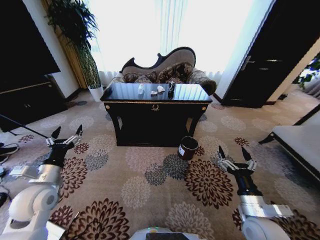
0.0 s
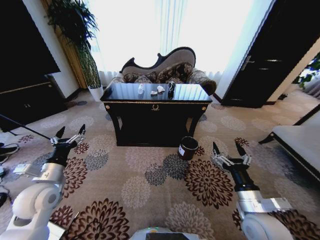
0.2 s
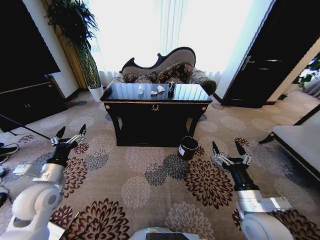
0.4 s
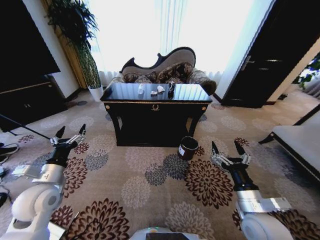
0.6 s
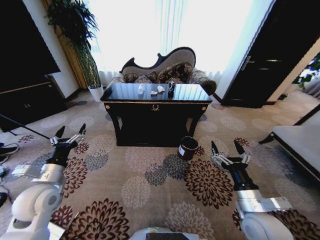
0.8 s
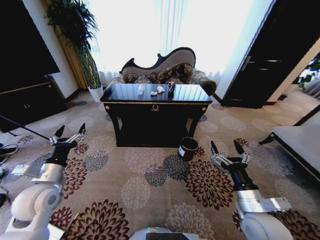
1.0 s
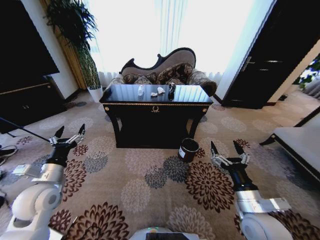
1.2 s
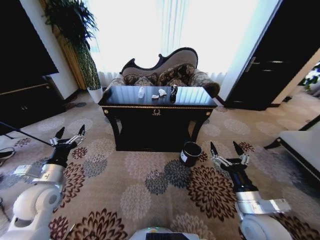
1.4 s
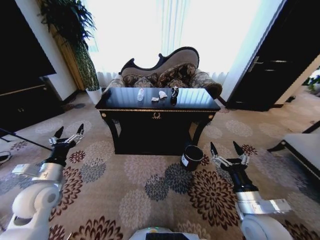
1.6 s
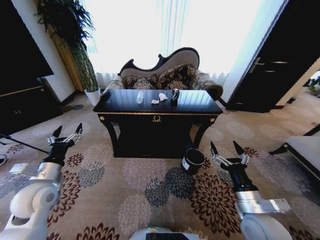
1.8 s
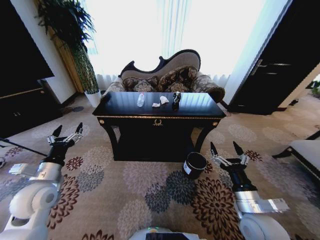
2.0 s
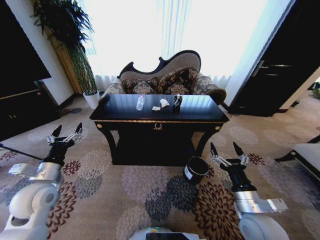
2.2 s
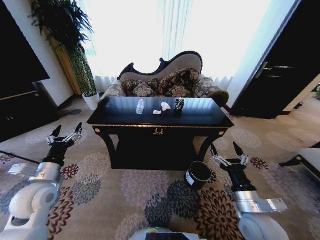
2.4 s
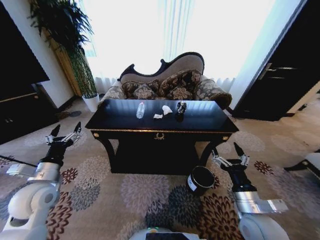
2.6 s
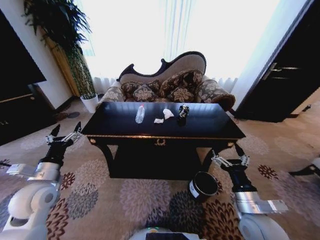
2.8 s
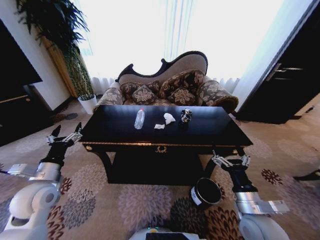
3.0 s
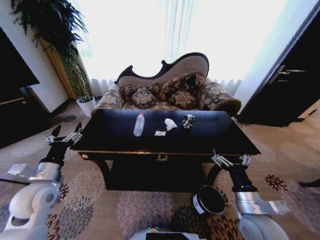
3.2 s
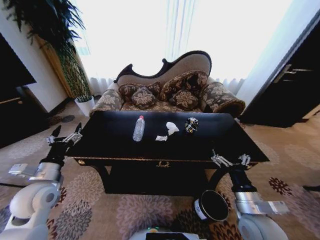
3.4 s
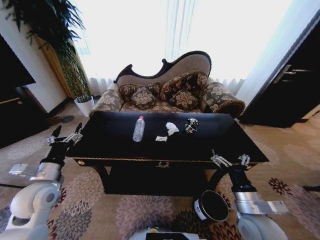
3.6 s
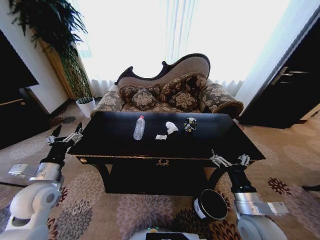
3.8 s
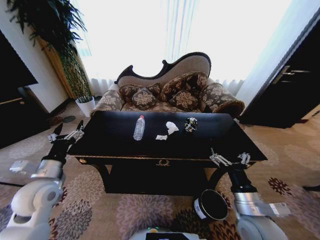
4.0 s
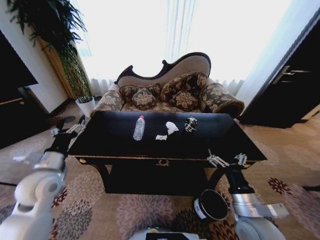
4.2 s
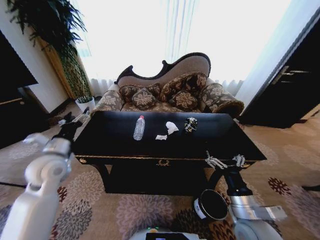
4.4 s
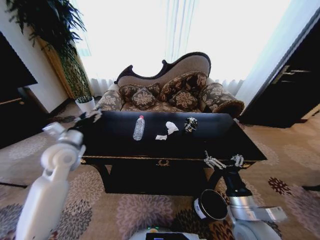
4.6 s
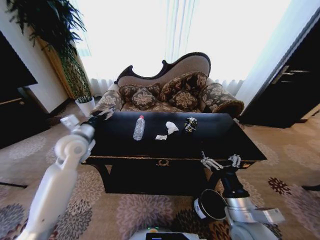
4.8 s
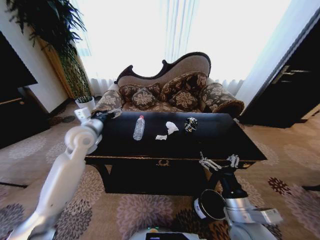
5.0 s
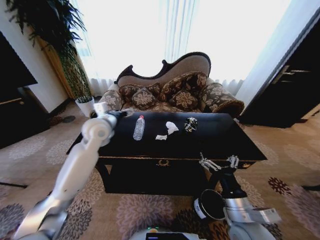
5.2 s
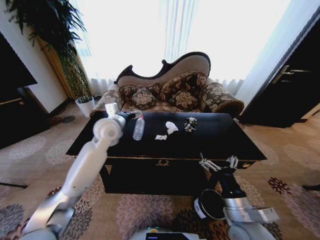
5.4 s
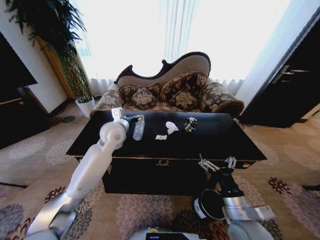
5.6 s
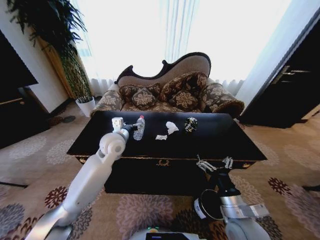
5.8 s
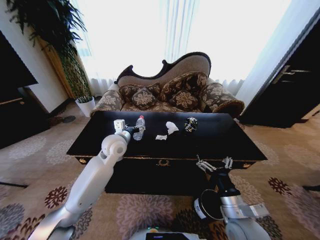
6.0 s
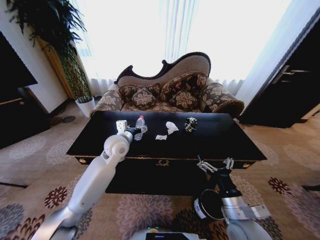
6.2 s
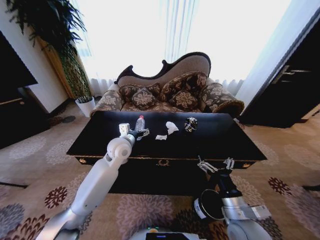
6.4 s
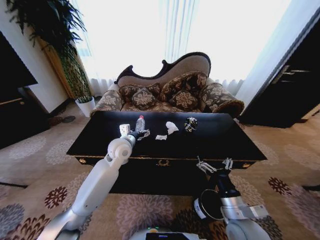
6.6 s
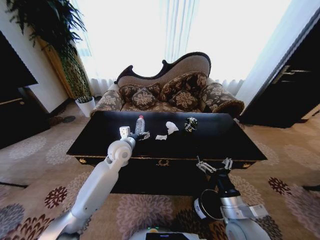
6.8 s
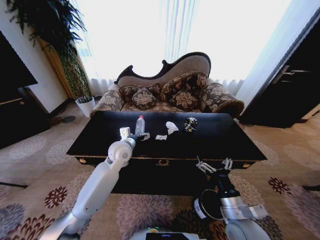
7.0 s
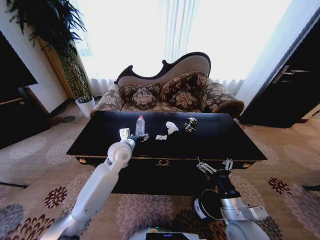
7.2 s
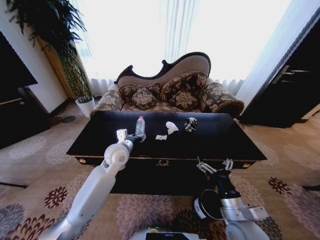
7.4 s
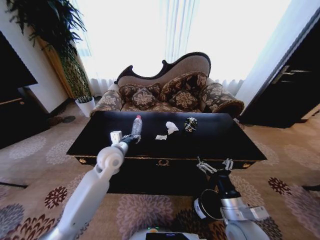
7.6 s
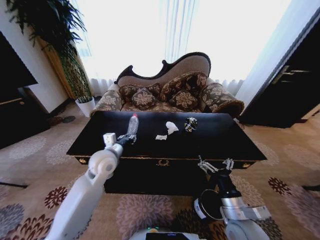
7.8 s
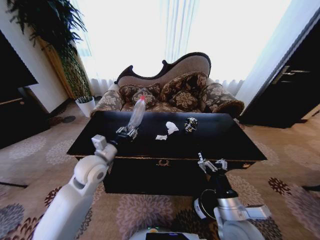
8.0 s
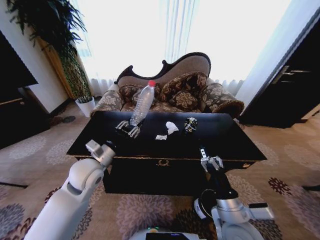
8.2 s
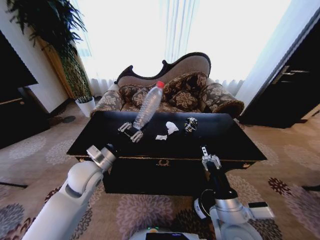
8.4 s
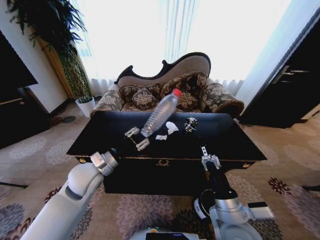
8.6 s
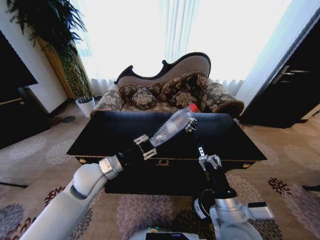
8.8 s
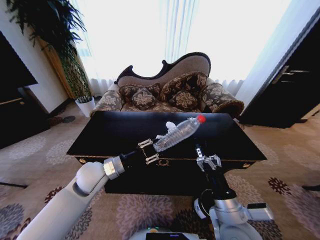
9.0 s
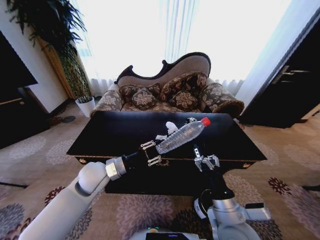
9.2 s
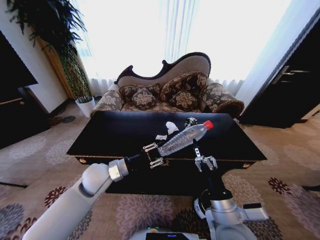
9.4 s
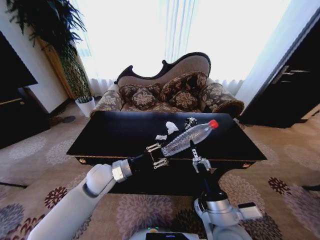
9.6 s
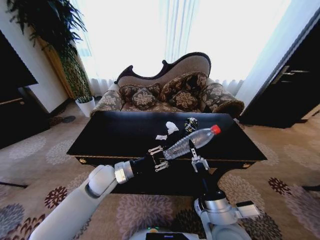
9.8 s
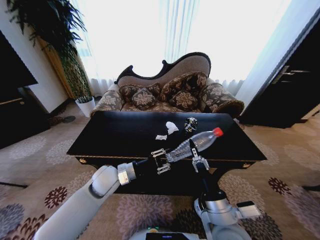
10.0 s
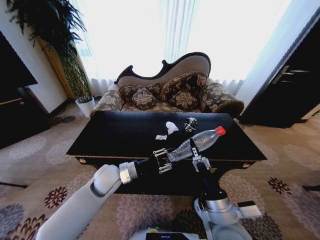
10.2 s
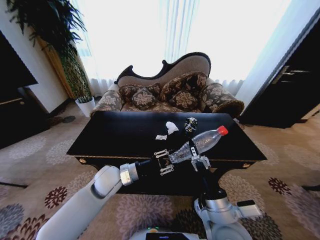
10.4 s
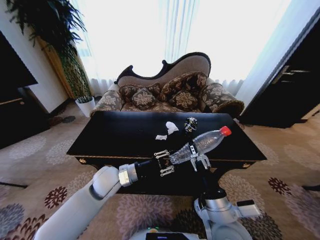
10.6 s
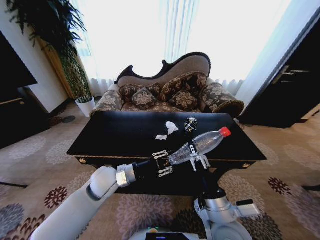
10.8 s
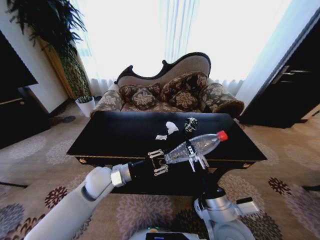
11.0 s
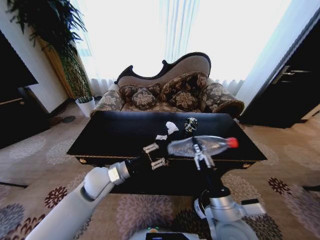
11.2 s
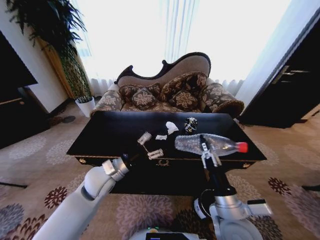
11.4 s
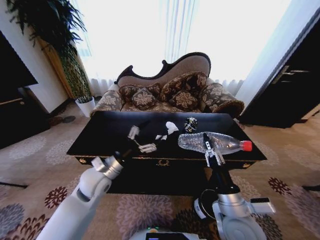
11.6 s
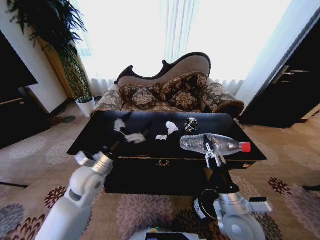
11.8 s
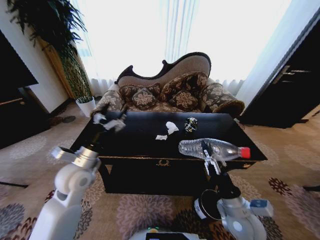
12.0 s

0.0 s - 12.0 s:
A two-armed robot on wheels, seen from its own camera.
Task of the whole recording: Move to the front of the table and place the trash on the table into the trash bin.
3.0 s - 4.4 s: The left gripper travels forward and upward by about 10 cm.
4.4 s - 6.0 s: The left gripper goes about 20 cm to the right and forward.
6.0 s - 7.6 s: The left gripper closes up.
7.6 s - 9.0 s: The left gripper shifts about 10 cm backward. Meanwhile the right gripper shifts by roughly 5 cm.
9.0 s - 10.4 s: The left gripper changes place by about 5 cm.
10.4 s - 12.0 s: The left gripper is displaced to the left by some 10 cm, and opens up. The right gripper moves to the right and downward, approximately 10 cm, and closes its fingers.

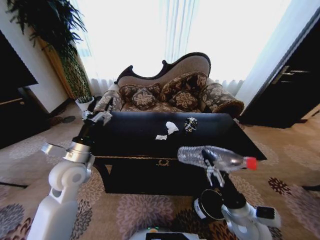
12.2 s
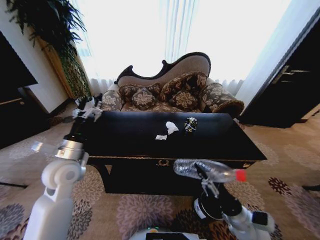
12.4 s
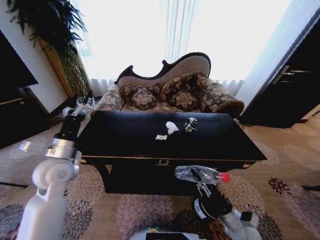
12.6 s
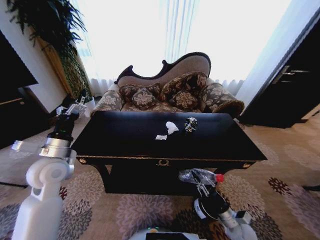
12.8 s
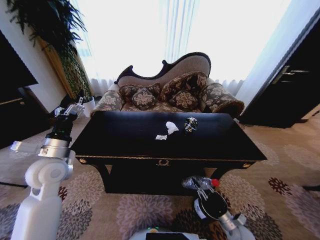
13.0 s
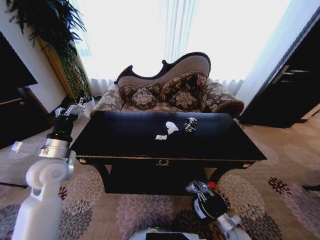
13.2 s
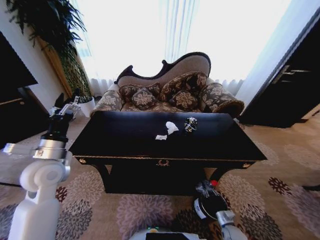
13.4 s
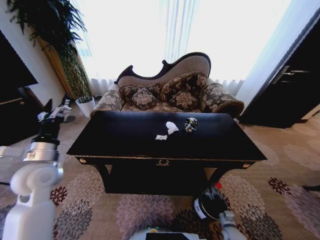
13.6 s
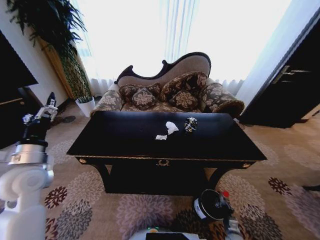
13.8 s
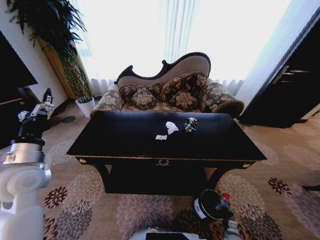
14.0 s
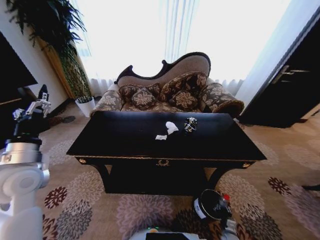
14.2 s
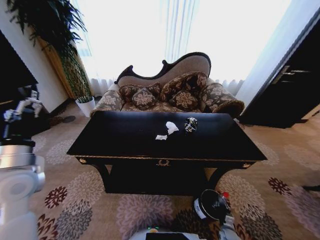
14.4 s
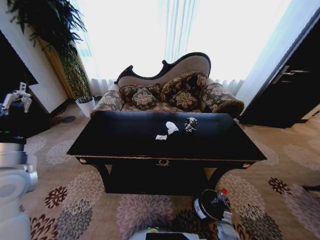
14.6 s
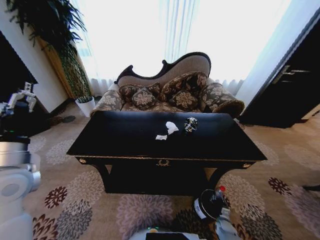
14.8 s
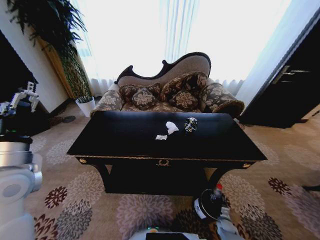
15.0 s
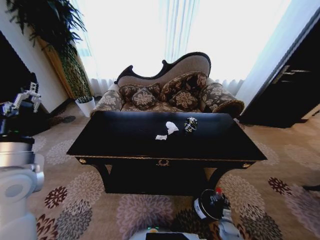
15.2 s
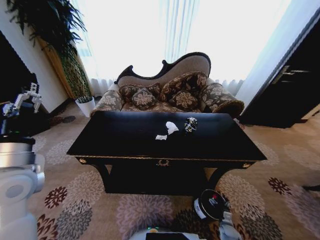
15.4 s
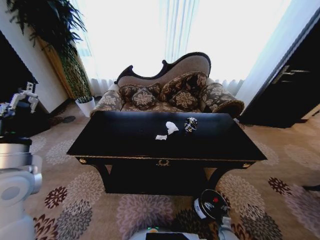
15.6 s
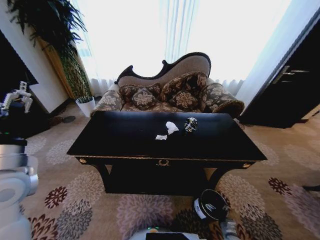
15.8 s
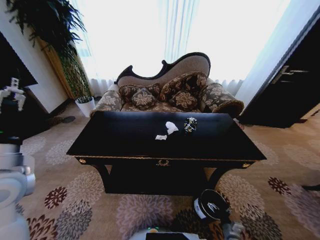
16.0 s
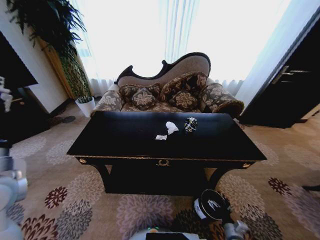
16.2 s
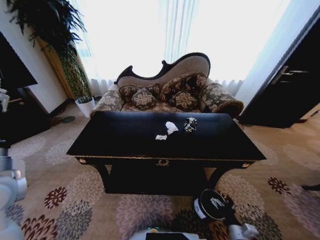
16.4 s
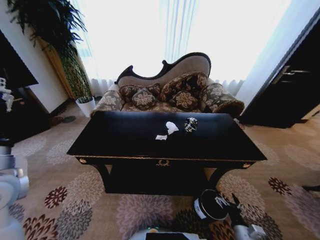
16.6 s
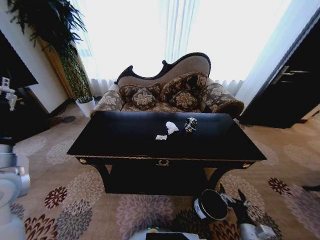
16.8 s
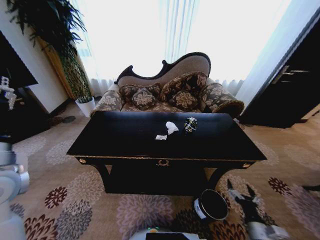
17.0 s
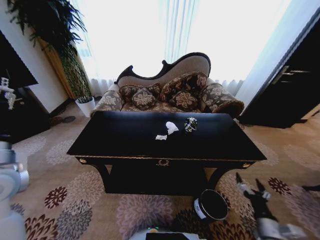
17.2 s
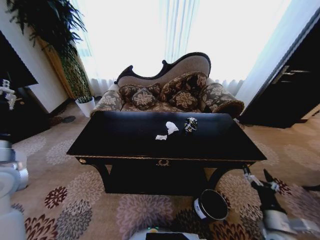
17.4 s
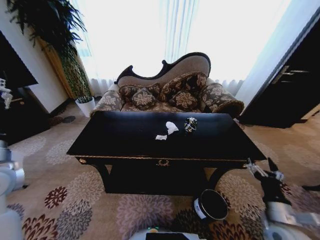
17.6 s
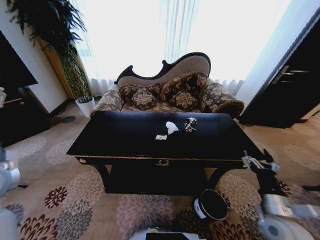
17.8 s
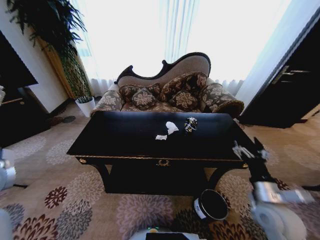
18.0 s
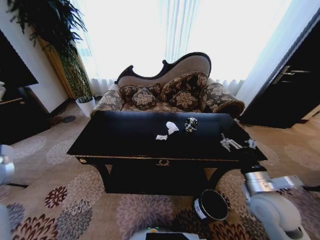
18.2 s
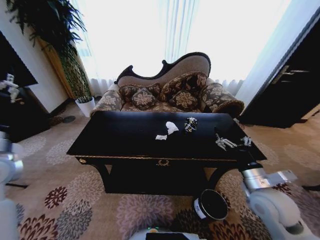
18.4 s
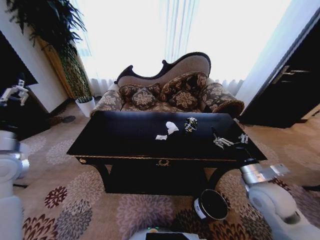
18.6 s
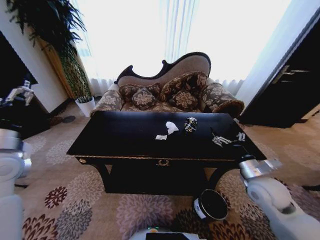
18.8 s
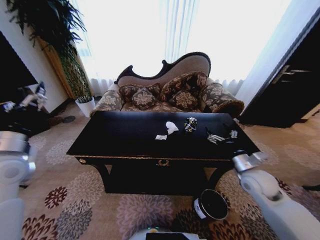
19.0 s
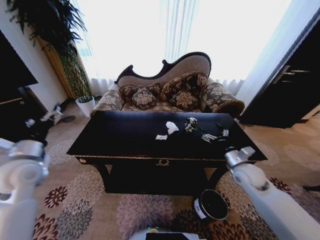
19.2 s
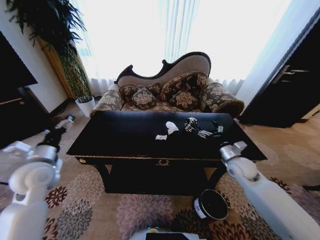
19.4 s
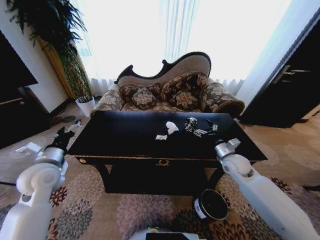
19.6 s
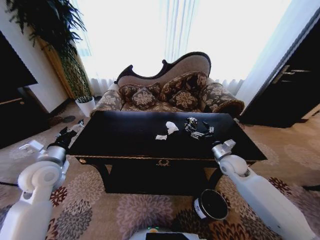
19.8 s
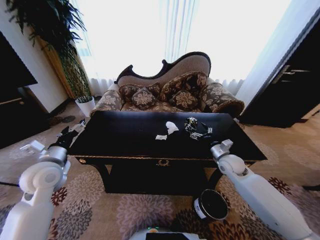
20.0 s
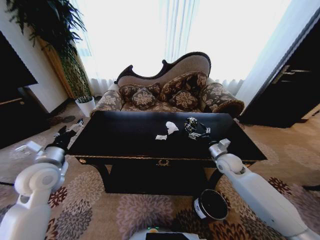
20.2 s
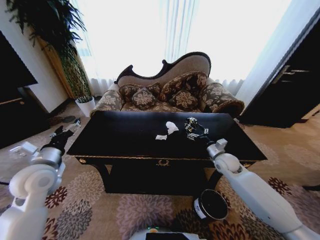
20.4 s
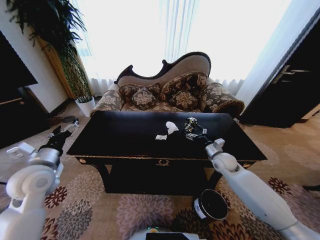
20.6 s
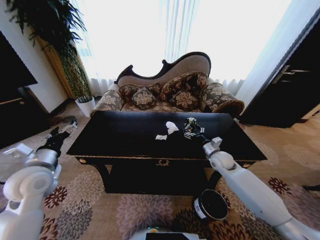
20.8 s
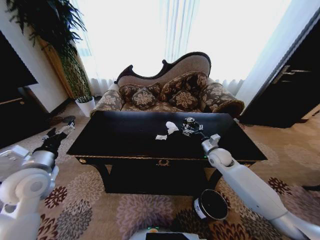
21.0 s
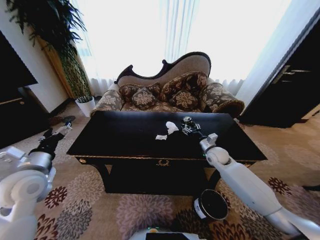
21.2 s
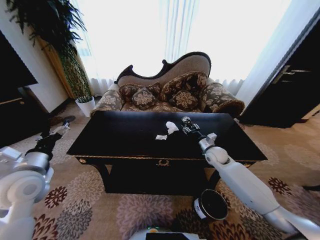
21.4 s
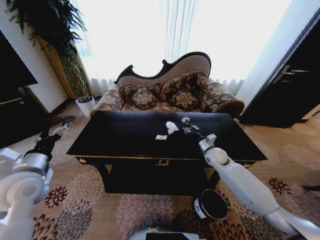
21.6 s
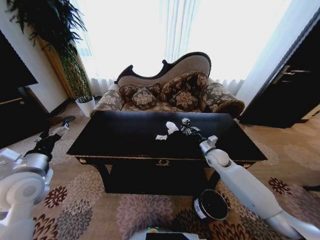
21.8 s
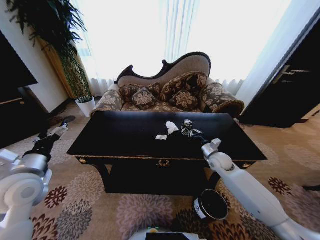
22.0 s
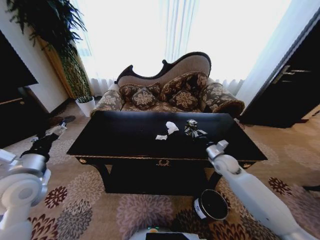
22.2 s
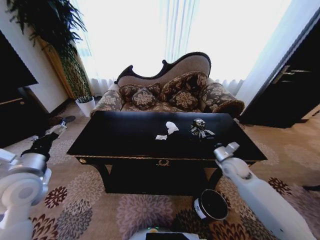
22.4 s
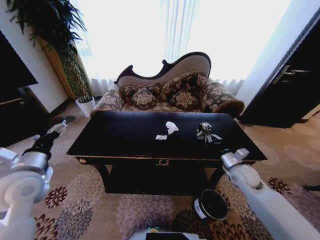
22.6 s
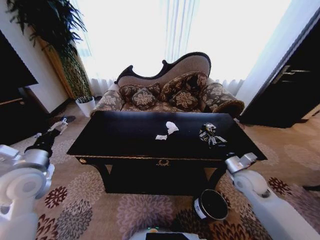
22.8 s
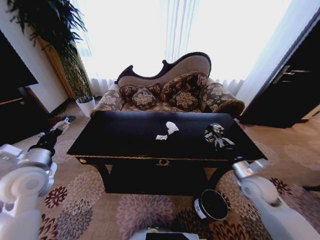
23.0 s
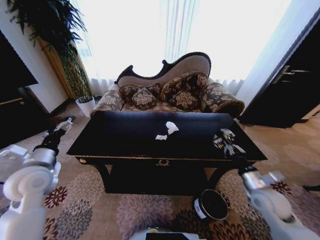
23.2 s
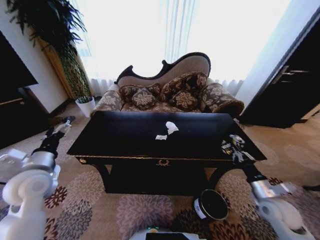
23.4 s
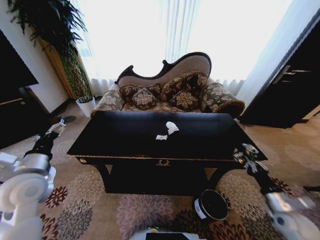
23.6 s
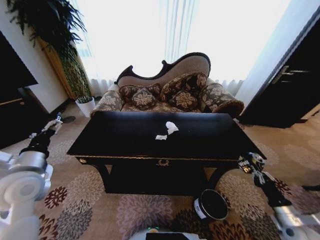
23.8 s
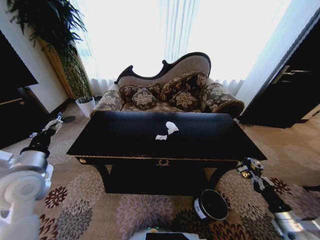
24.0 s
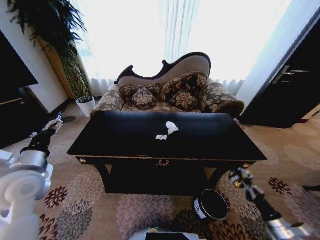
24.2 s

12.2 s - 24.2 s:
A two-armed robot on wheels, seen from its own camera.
Task of the whole recording: Move to the front of the table and place the trash on the table into the trash bin.
12.2 s - 13.8 s: The left gripper heads to the left, covering some 10 cm, while the right gripper shifts about 30 cm downward.
13.8 s - 15.2 s: The left gripper moves some 5 cm, while the right gripper changes place by about 5 cm, and opens up.
15.2 s - 16.6 s: The right gripper goes approximately 20 cm upward and backward.
16.6 s - 18.2 s: The left gripper heads to the left, covering approximately 5 cm; the right gripper moves upward and forward, roughly 25 cm.
18.2 s - 19.8 s: The right gripper heads forward, covering some 20 cm. Meanwhile the left gripper goes some 10 cm downward, to the right and forward.
19.8 s - 21.2 s: The right gripper moves forward, some 5 cm.
21.2 s - 22.6 s: The right gripper travels backward and to the right by roughly 10 cm, and closes its fingers.
22.6 s - 24.2 s: The right gripper is displaced backward, downward and to the right by about 30 cm.
